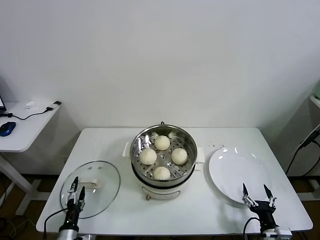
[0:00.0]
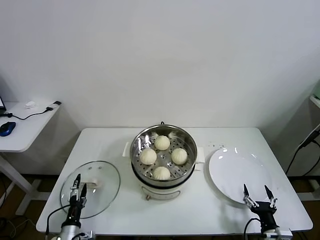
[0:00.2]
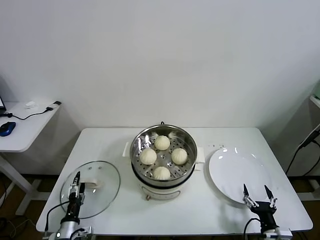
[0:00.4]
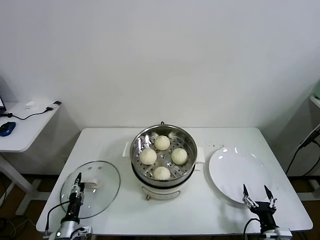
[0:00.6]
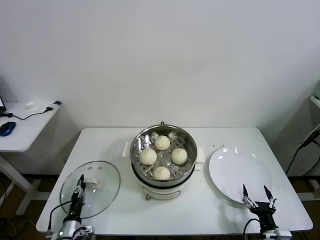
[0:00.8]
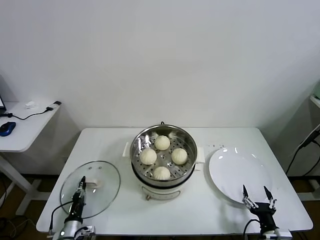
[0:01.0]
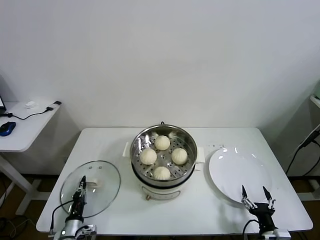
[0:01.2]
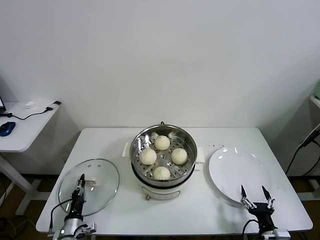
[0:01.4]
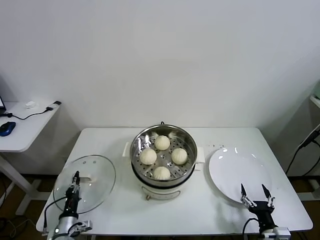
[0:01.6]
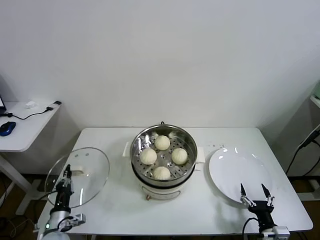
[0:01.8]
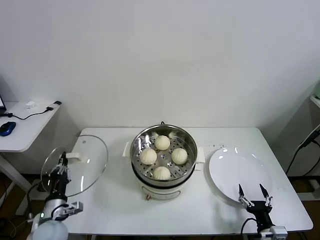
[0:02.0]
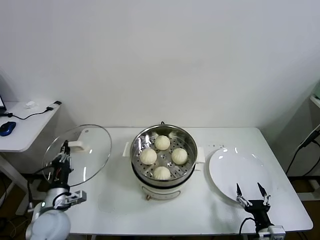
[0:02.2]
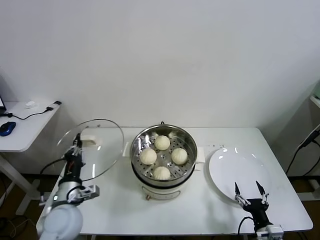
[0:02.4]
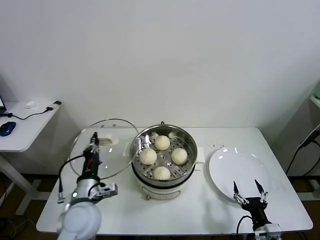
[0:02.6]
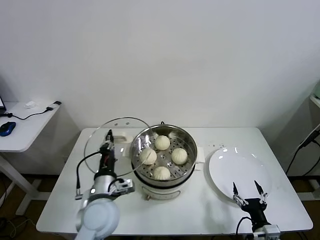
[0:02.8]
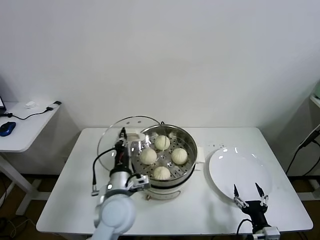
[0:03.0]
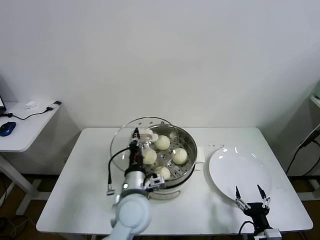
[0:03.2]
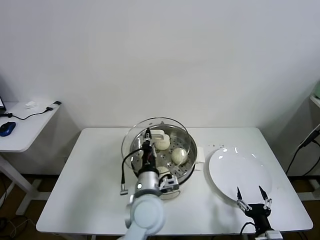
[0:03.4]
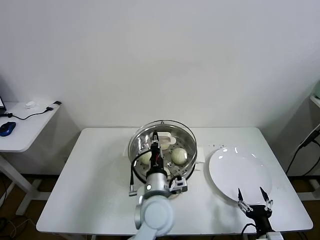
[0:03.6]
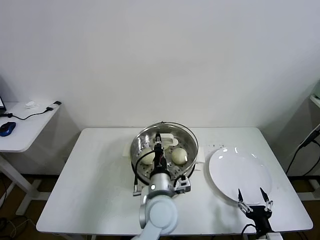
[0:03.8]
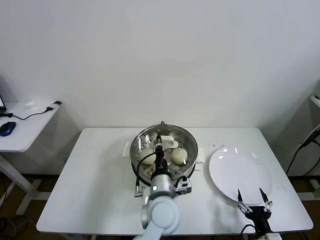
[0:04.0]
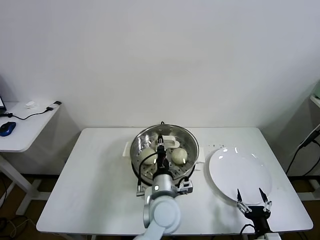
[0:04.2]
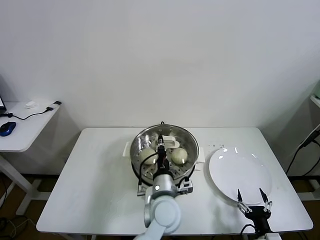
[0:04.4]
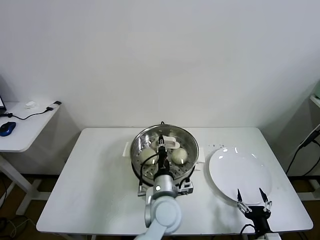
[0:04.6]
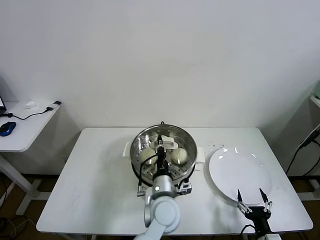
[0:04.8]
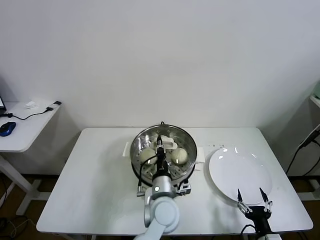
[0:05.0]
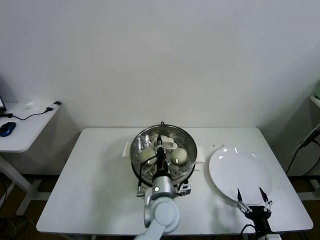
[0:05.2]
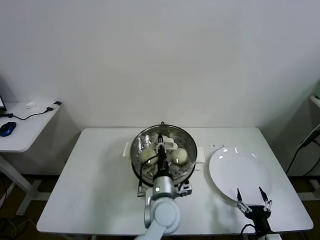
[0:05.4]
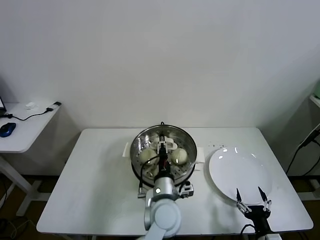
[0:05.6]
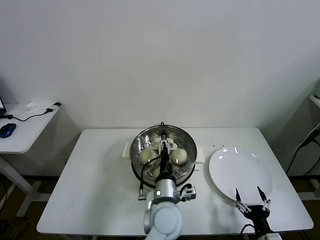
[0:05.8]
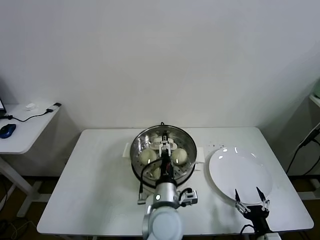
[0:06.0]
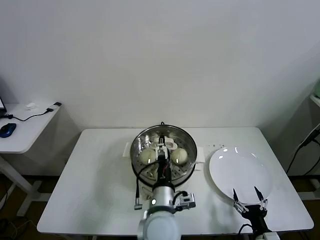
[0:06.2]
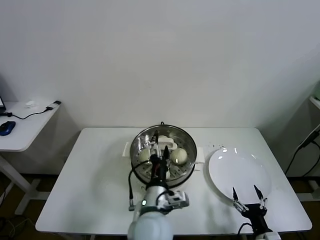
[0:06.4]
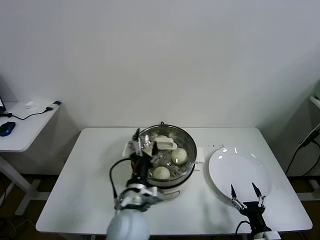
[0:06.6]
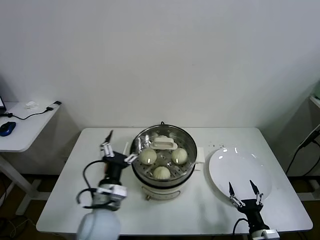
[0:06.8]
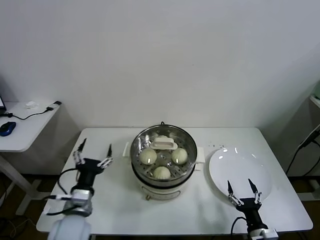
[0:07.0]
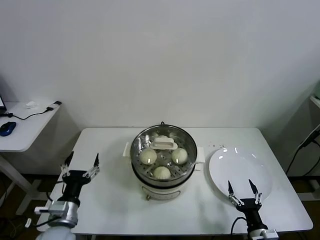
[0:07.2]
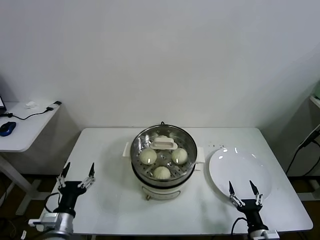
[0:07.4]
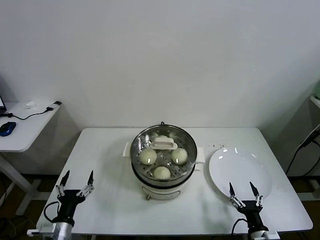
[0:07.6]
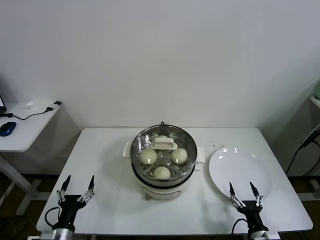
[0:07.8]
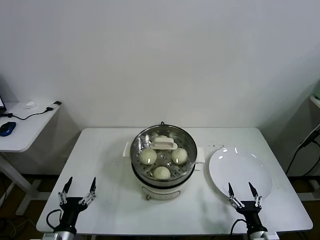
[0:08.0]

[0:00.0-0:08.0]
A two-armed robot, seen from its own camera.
Task of the whole recording: take steamed baozi put them in steamer.
Step, 0:01.2 to 0:05.8: Place the pot lid on the steamer with left gripper.
0:00.0 to 0:01.6: The left gripper closes.
0:01.6 to 0:03.2: The left gripper heads to the right and upward, covering some 35 cm.
0:03.2 to 0:04.8: The left gripper shifts about 10 cm to the right.
0:04.8 to 0:06.4: The left gripper moves backward, approximately 5 cm, and opens up.
0:06.4 to 0:08.0: The left gripper moves to the left and downward, roughly 35 cm.
